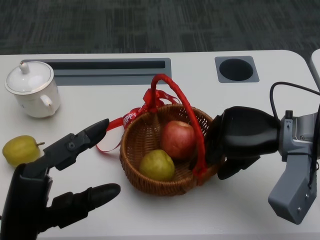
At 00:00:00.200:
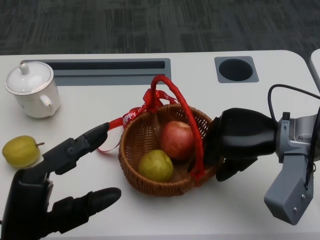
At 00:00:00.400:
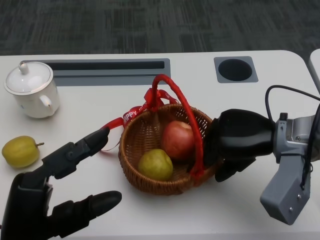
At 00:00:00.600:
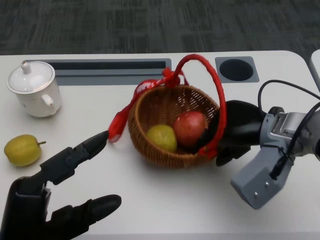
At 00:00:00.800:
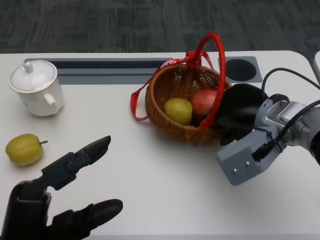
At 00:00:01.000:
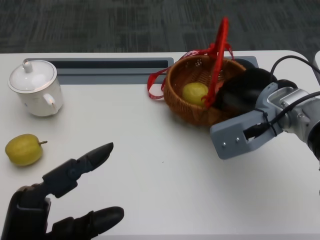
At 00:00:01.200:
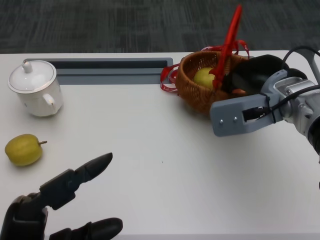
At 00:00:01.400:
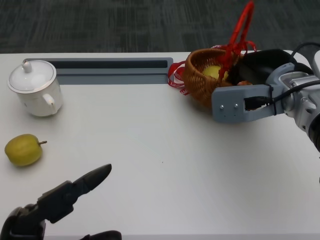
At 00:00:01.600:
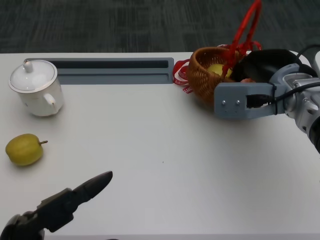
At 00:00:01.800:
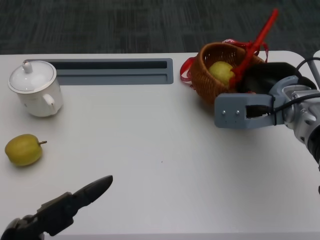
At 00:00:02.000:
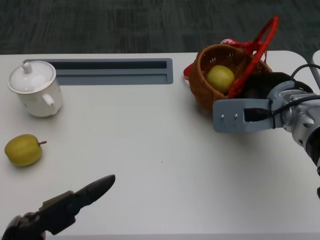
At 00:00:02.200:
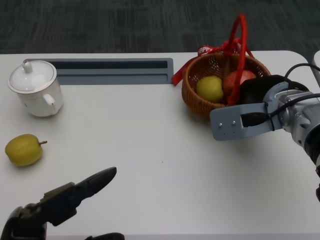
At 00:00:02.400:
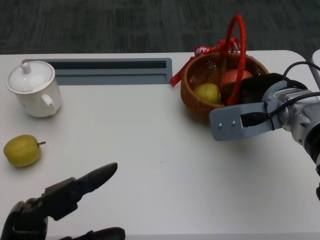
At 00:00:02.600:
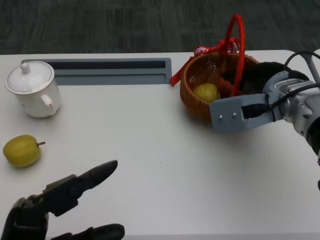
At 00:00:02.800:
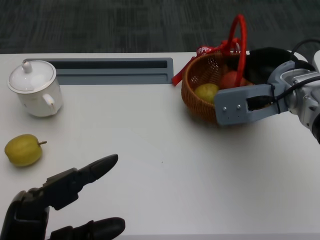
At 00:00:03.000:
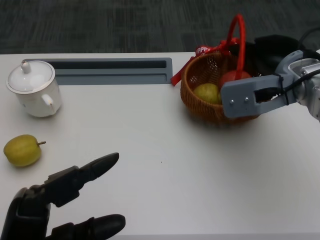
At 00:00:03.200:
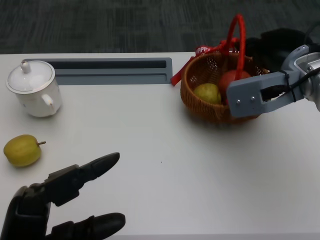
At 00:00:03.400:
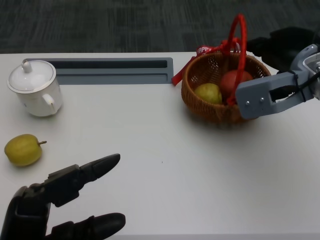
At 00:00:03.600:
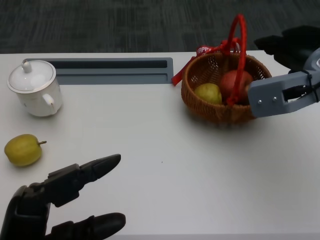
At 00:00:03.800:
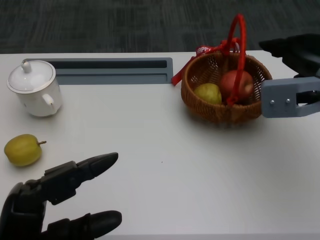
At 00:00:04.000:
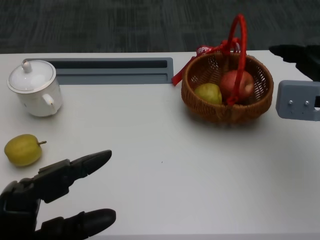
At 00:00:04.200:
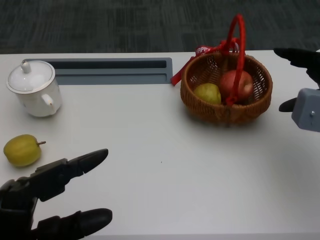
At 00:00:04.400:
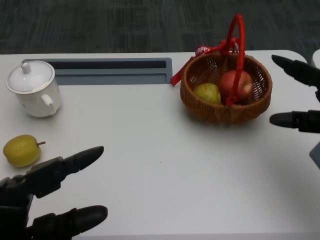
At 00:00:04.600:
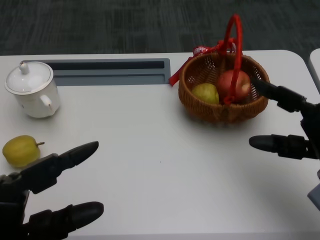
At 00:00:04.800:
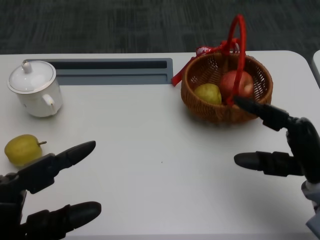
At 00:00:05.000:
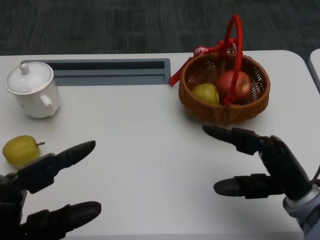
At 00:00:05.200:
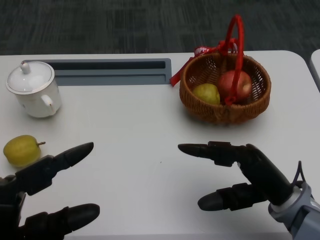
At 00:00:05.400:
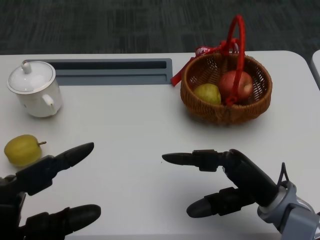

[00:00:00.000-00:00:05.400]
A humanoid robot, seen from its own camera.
00:00:00.000 to 00:00:01.400: The right hand moves about 5 cm, while the left hand is displaced backward by approximately 5 cm.
00:00:01.400 to 00:00:02.800: There are only small adjustments of the hands.
00:00:02.800 to 00:00:04.000: The right hand is displaced to the right by some 10 cm.
00:00:04.000 to 00:00:05.400: The right hand goes approximately 20 cm backward, downward and to the left.
